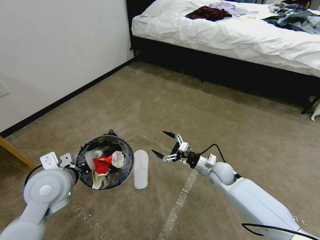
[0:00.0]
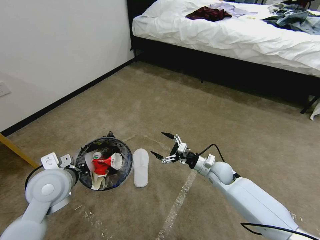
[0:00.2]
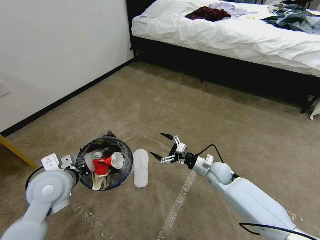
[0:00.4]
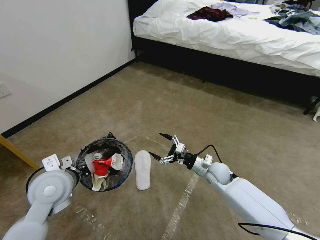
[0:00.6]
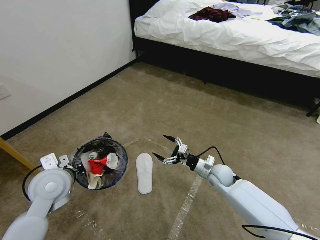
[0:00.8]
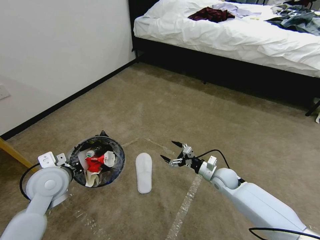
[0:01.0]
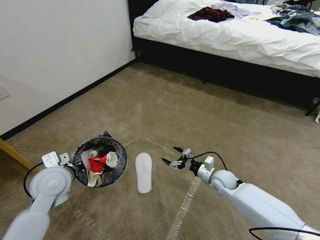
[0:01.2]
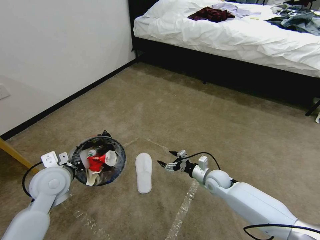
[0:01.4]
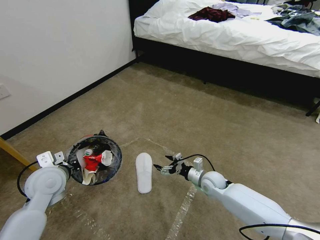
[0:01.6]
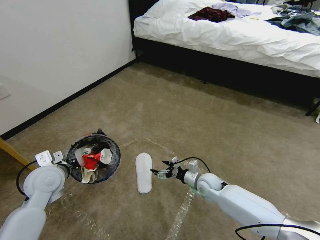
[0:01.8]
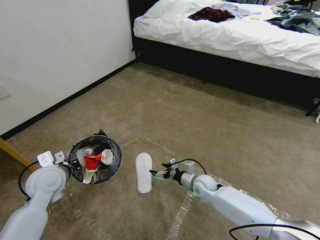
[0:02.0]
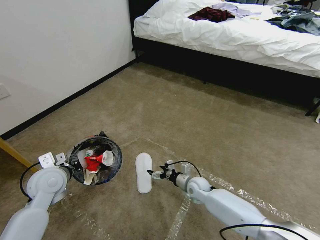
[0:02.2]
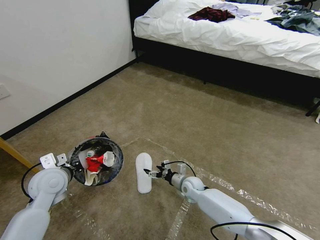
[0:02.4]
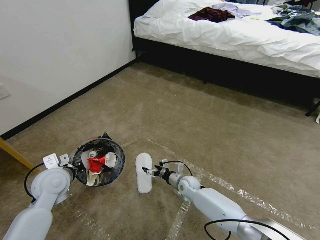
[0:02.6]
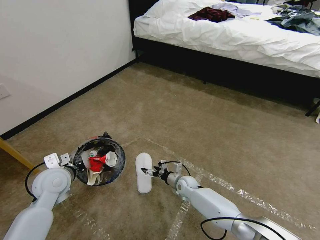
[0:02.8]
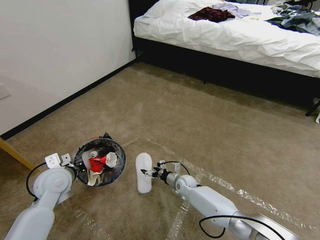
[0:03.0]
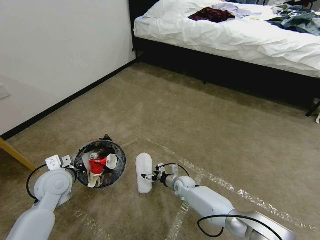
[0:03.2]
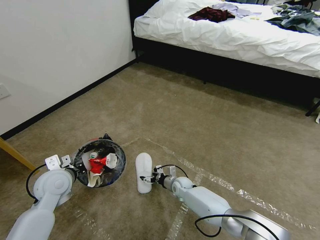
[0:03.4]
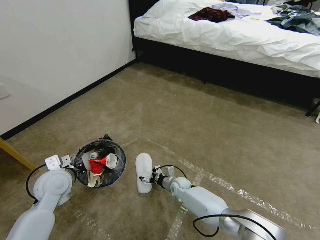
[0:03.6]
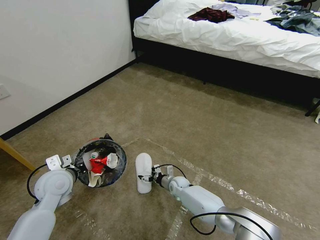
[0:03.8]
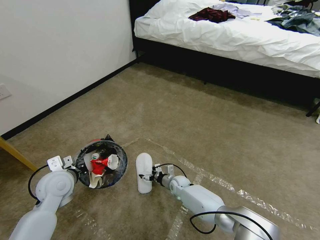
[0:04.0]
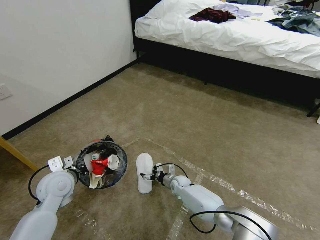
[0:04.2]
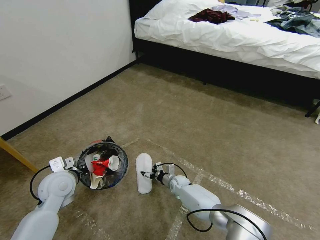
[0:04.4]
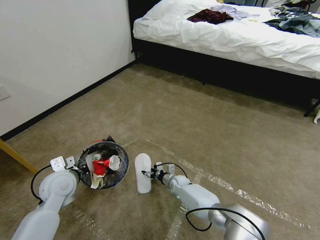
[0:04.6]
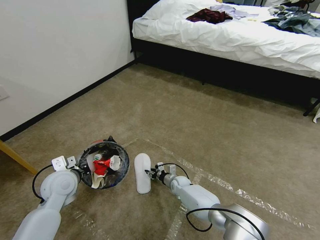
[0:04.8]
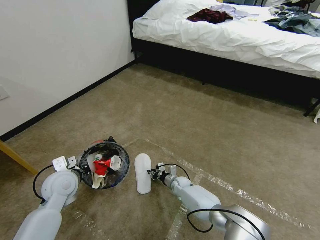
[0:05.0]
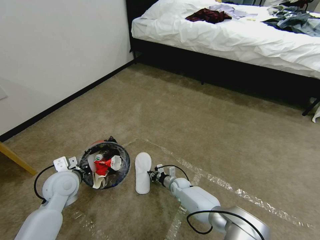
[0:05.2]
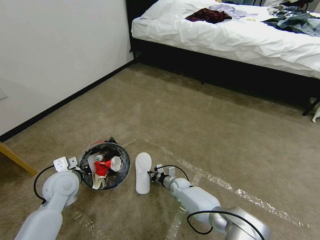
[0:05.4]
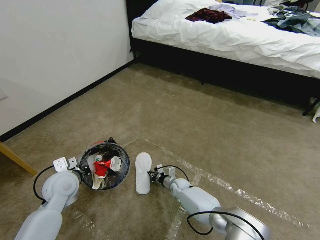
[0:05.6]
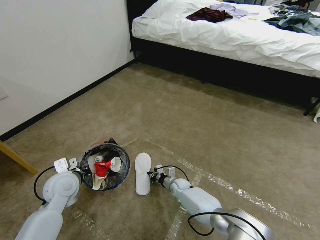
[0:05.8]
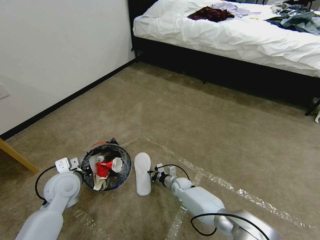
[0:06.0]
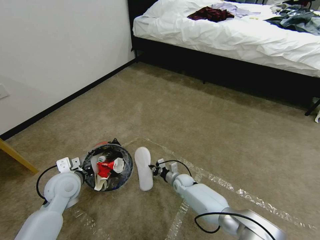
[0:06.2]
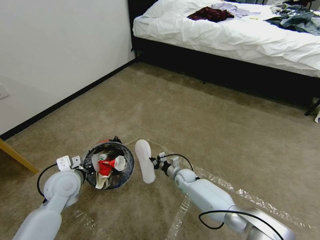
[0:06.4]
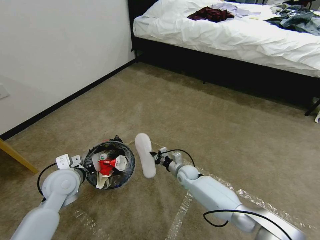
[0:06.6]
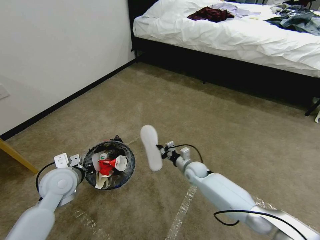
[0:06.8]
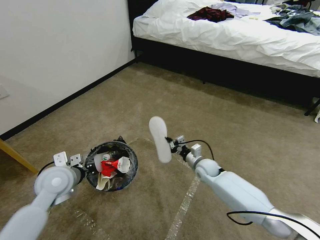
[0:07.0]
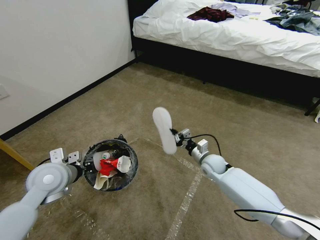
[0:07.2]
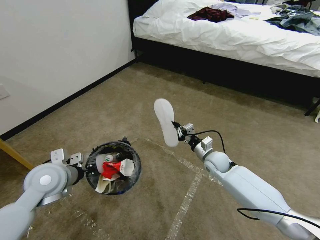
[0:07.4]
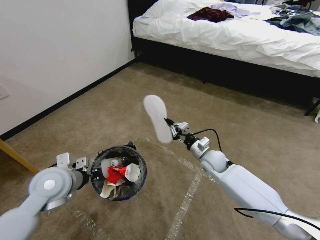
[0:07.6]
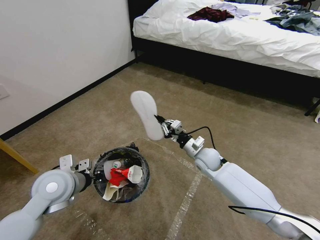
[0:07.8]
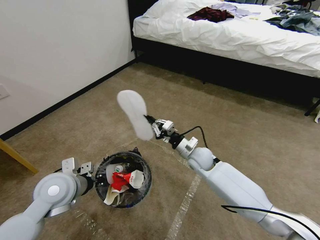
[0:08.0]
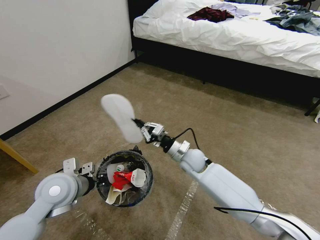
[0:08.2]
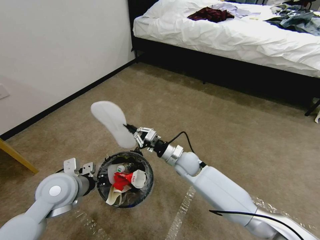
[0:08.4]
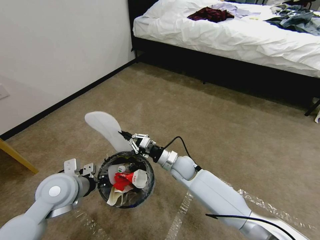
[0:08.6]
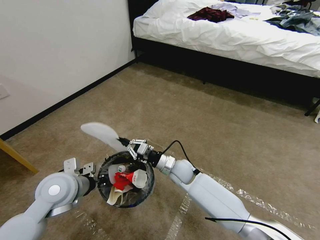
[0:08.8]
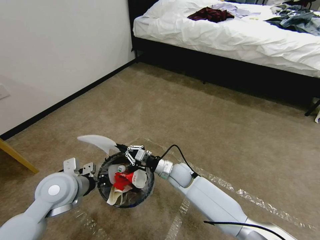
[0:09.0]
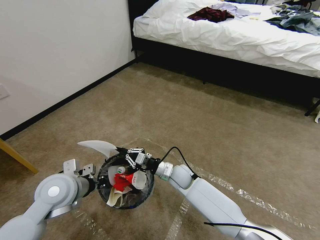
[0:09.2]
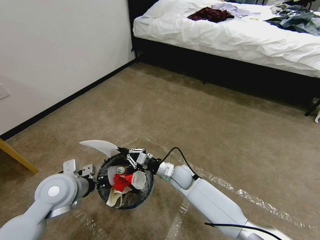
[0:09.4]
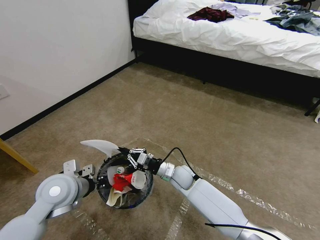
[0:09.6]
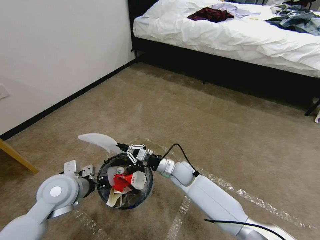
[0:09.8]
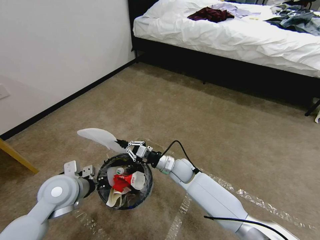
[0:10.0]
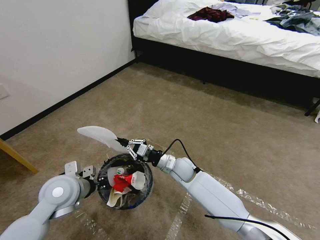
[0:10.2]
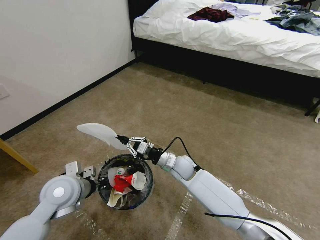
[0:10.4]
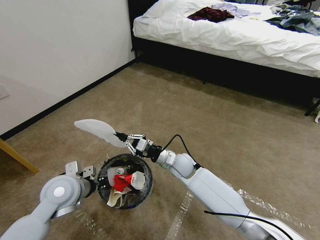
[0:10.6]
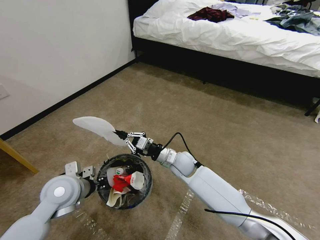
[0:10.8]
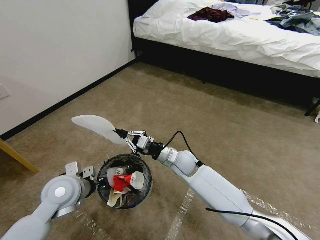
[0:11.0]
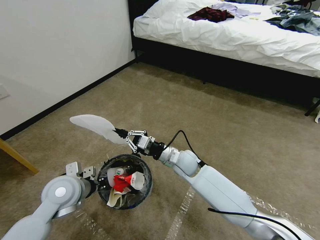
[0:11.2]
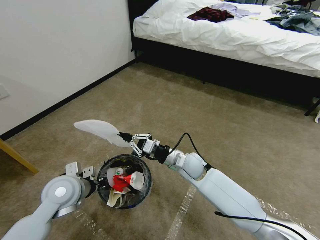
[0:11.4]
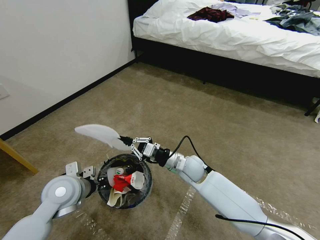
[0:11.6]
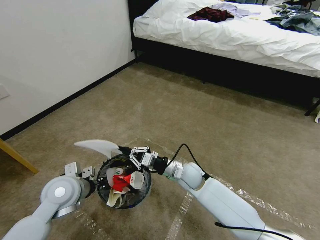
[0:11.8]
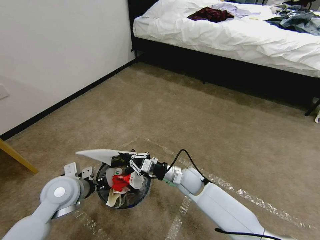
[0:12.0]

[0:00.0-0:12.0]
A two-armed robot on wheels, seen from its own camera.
Task of the whole recording: Pick up the trash bin and place the garbage on the floor into it.
0:00.0 to 0:01.6: The left gripper changes place by about 5 cm. Meanwhile the right gripper travels downward by approximately 5 cm.
0:01.6 to 0:03.0: The right gripper goes roughly 15 cm to the left and downward.
0:03.0 to 0:04.4: The right gripper changes place by about 5 cm.
0:04.4 to 0:06.0: The right gripper closes its fingers.
0:06.0 to 0:07.6: The right gripper is displaced upward and to the right by approximately 25 cm, while the left gripper is displaced upward by about 5 cm.
0:07.6 to 0:09.0: The right gripper travels to the left by about 15 cm.
0:09.0 to 0:10.4: There are only small adjustments of the grippers.
0:10.4 to 0:12.0: The right gripper ends up roughly 5 cm from where it was.

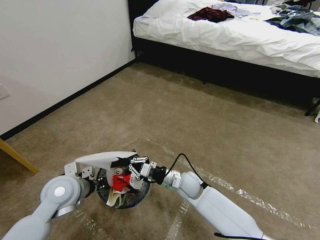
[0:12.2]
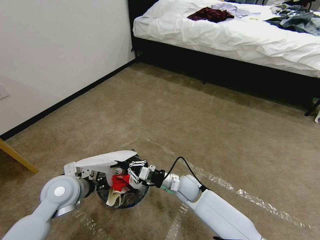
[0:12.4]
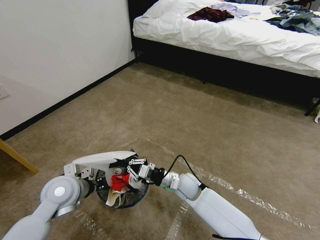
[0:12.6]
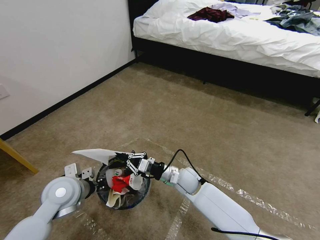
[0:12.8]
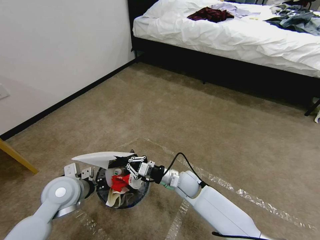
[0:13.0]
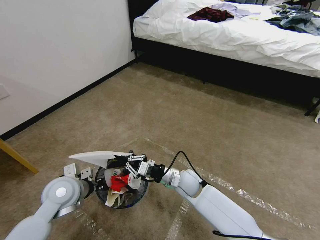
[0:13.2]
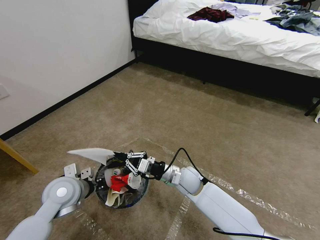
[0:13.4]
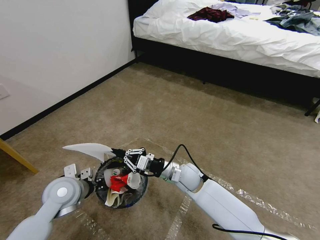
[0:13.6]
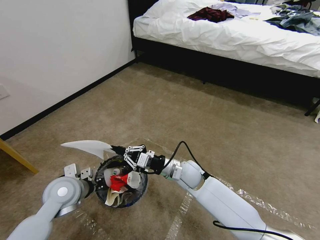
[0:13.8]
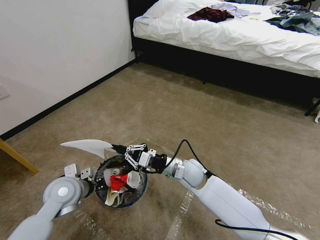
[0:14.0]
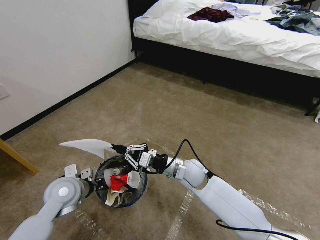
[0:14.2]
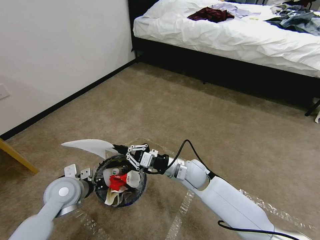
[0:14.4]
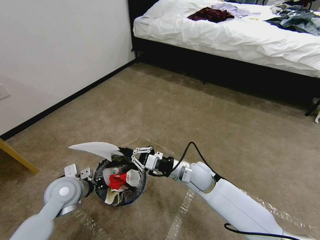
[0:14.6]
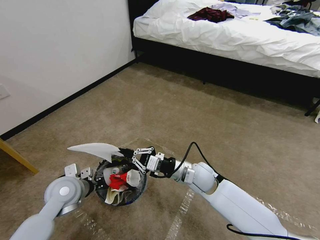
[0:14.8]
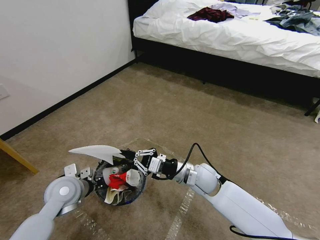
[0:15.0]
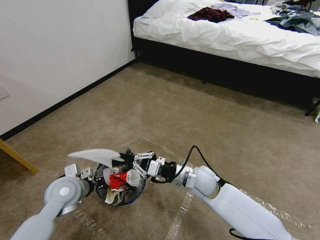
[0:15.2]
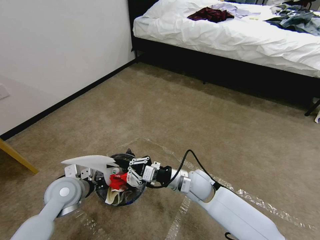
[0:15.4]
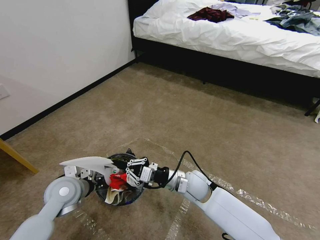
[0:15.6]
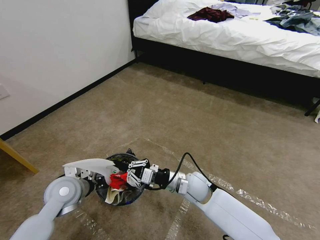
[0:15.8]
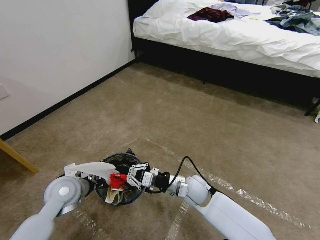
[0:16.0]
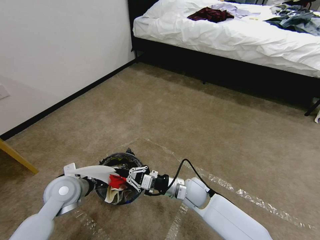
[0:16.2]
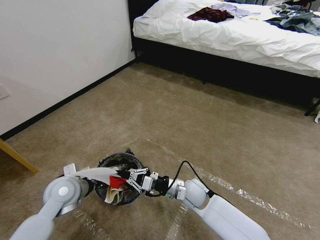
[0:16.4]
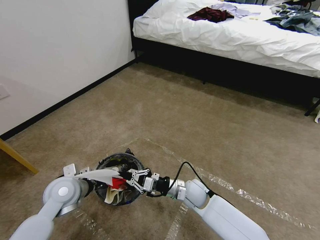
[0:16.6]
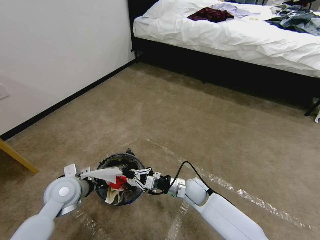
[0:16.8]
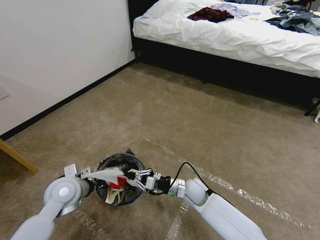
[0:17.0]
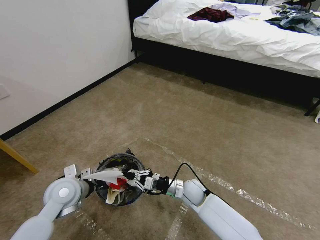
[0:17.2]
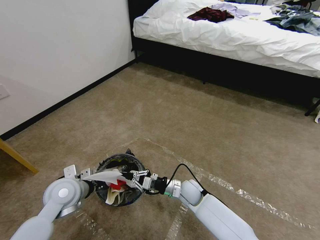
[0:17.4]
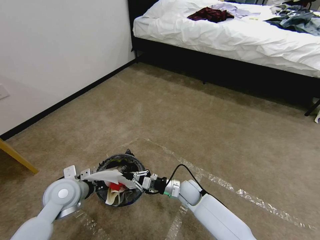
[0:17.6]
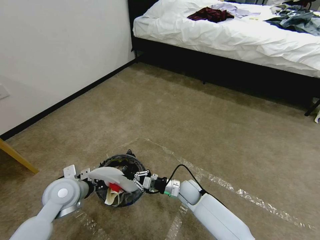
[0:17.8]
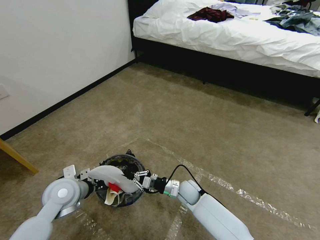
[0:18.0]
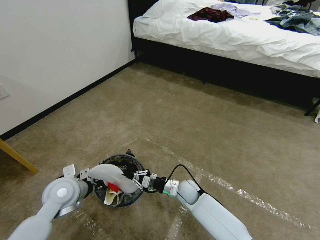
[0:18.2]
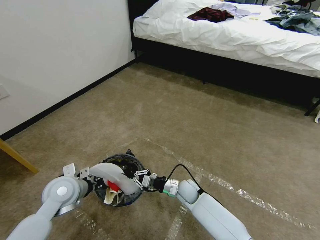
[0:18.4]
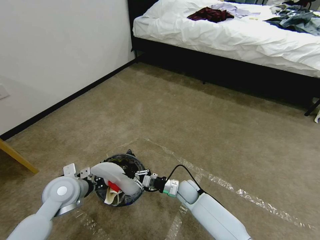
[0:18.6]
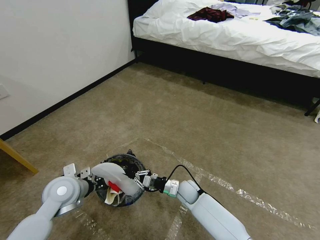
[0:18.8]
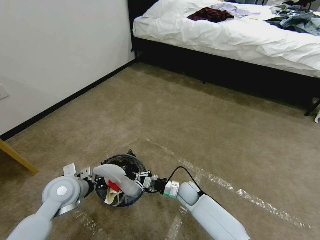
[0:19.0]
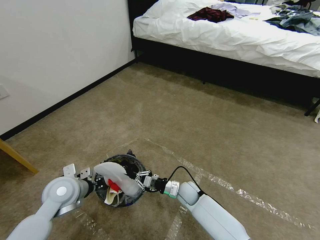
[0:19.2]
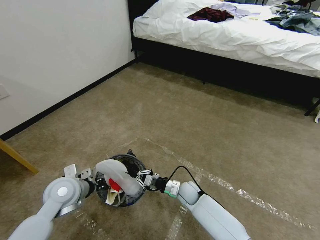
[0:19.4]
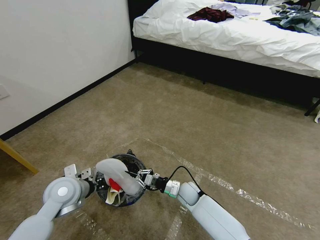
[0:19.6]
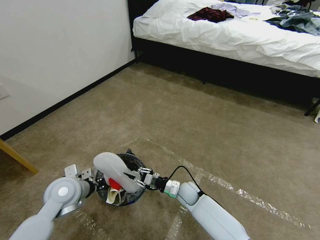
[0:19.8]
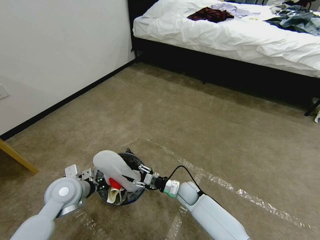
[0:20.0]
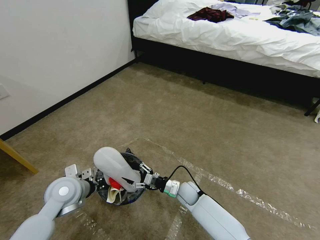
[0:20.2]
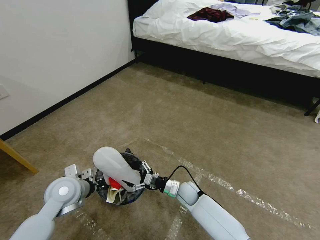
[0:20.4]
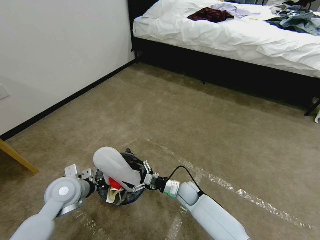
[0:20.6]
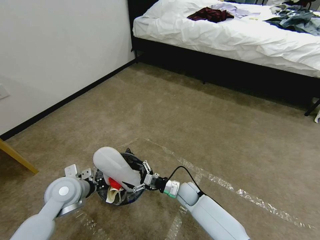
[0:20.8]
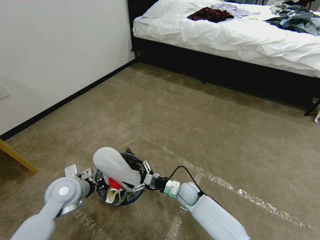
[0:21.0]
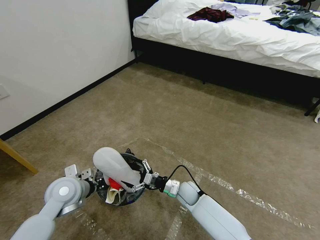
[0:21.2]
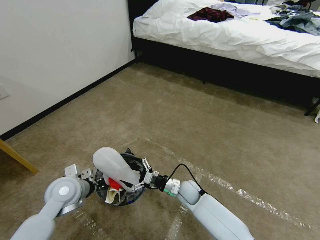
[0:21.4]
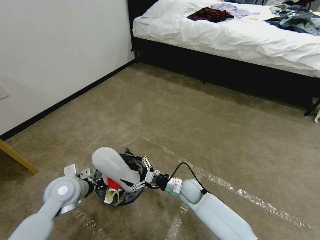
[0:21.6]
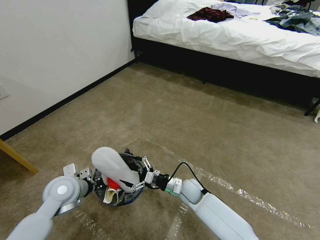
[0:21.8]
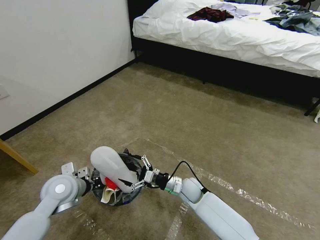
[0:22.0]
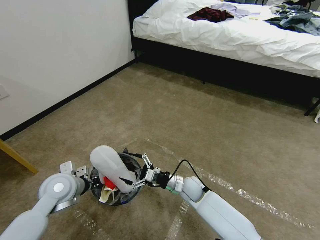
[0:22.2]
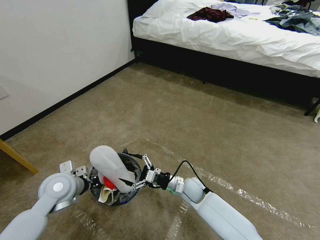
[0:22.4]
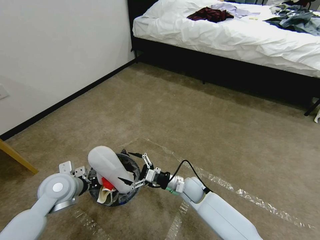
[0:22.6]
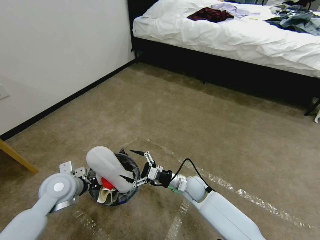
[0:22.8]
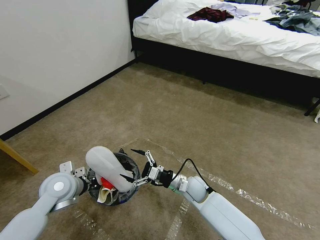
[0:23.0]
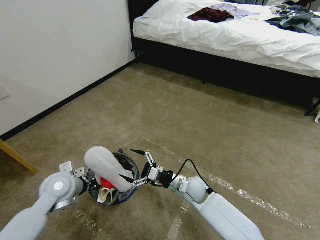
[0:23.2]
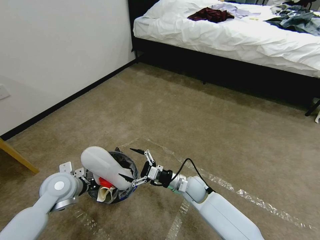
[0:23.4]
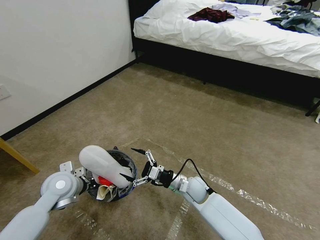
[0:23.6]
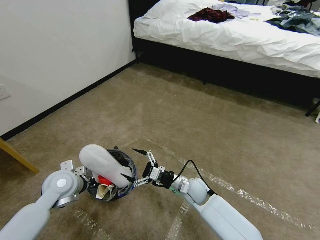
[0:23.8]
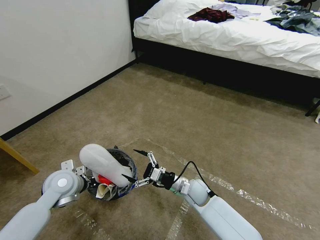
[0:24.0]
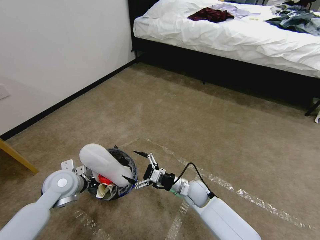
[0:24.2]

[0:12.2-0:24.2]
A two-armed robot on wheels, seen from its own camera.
Task of the whole recording: Pick up the trash bin and place the garbage on the floor into it.
0:12.2 to 0:13.8: The right gripper heads upward, covering approximately 5 cm.
0:13.8 to 0:15.2: The right gripper changes place by some 5 cm.
0:15.2 to 0:16.6: The right gripper travels downward by approximately 10 cm.
0:16.6 to 0:18.2: The right gripper heads downward, covering roughly 5 cm.
0:18.2 to 0:19.8: There are only small adjustments of the grippers.
0:19.8 to 0:21.2: The right gripper opens its fingers.
0:21.2 to 0:22.6: The right gripper goes roughly 5 cm upward.
0:22.6 to 0:24.2: The grippers make only small movements.
